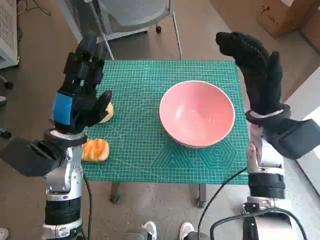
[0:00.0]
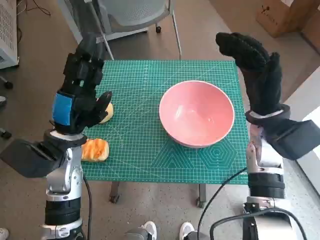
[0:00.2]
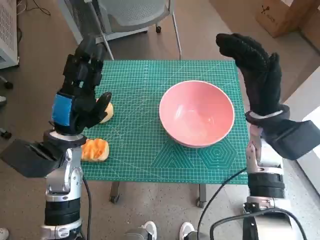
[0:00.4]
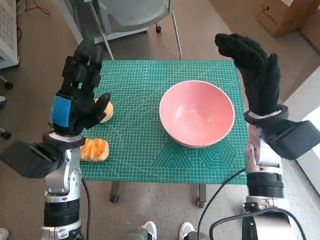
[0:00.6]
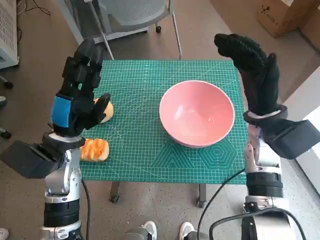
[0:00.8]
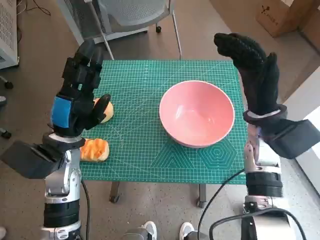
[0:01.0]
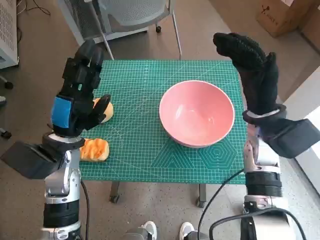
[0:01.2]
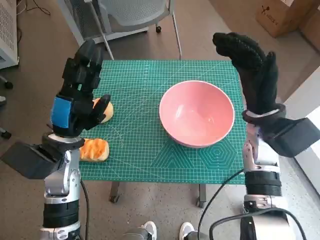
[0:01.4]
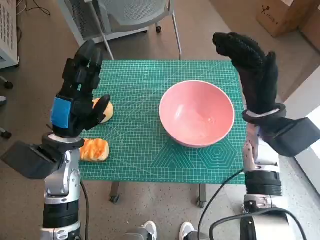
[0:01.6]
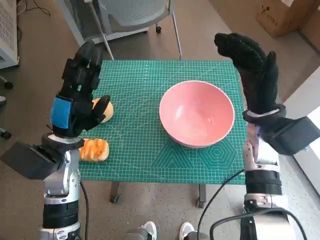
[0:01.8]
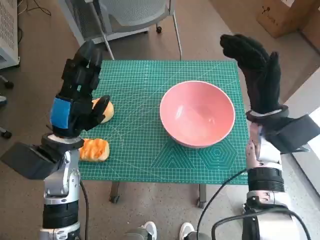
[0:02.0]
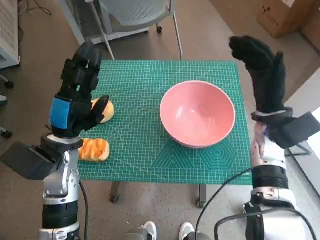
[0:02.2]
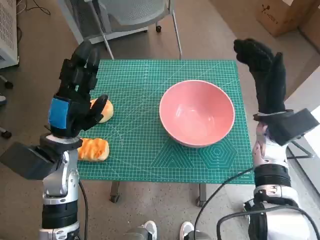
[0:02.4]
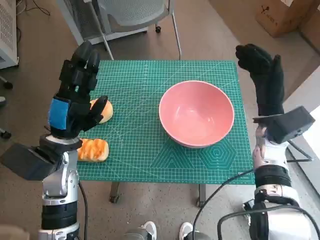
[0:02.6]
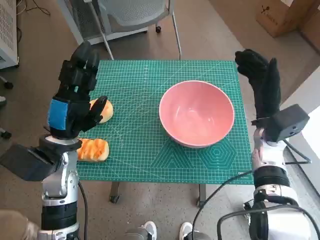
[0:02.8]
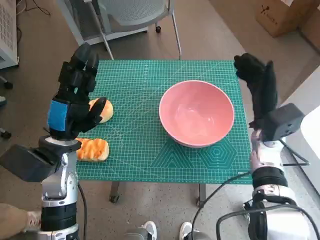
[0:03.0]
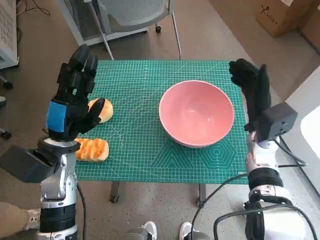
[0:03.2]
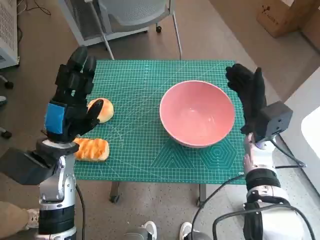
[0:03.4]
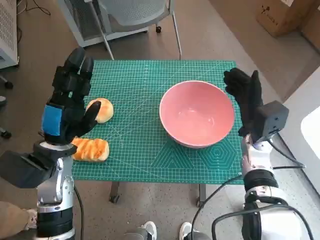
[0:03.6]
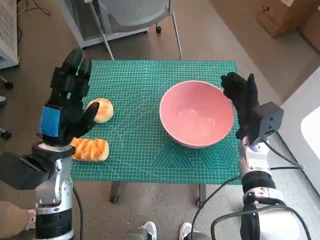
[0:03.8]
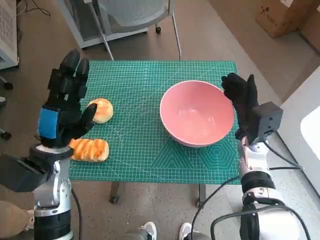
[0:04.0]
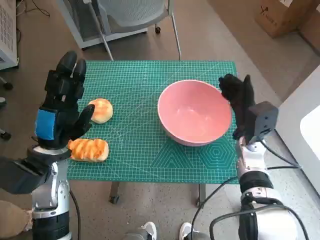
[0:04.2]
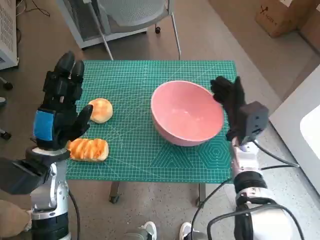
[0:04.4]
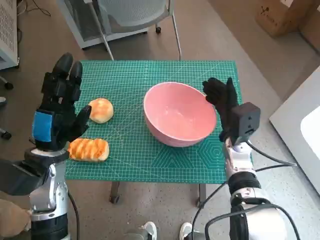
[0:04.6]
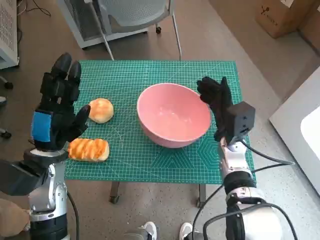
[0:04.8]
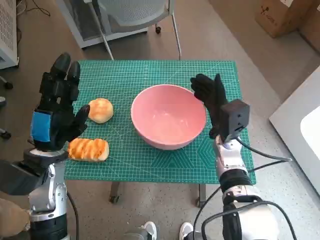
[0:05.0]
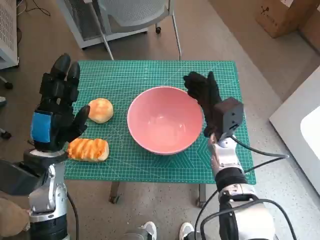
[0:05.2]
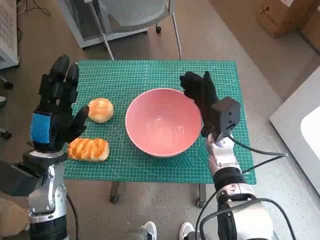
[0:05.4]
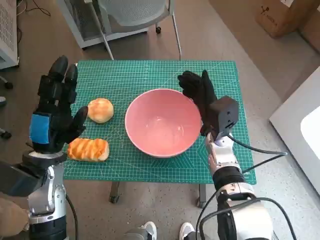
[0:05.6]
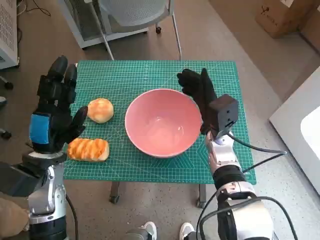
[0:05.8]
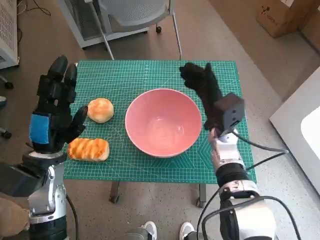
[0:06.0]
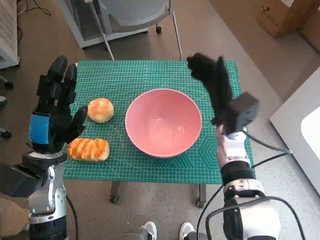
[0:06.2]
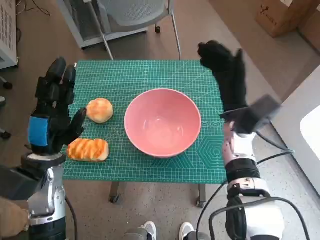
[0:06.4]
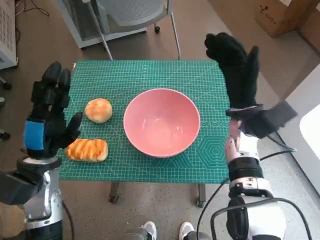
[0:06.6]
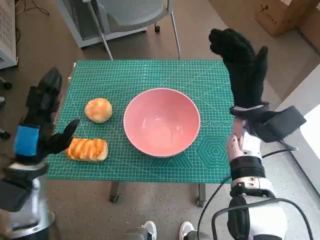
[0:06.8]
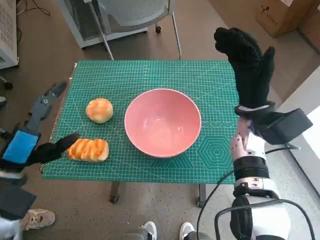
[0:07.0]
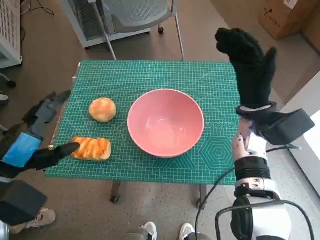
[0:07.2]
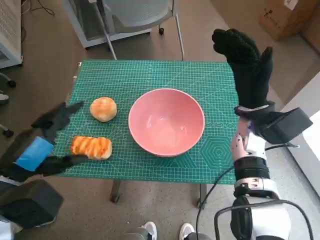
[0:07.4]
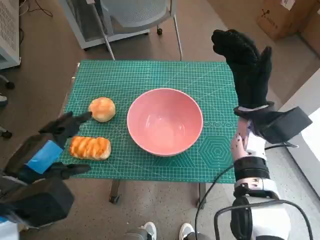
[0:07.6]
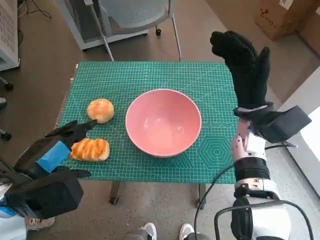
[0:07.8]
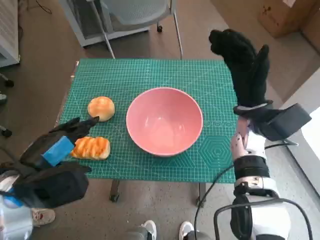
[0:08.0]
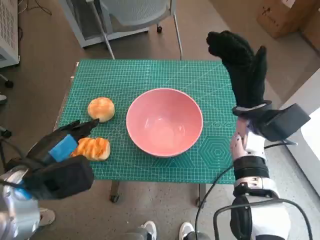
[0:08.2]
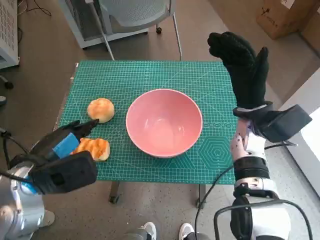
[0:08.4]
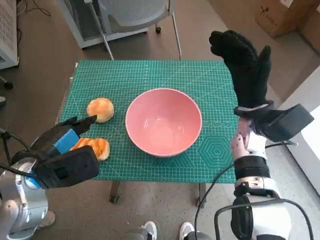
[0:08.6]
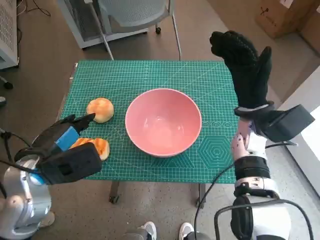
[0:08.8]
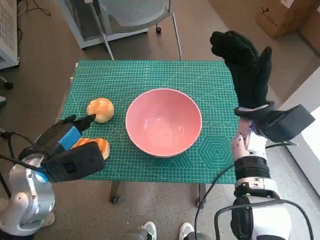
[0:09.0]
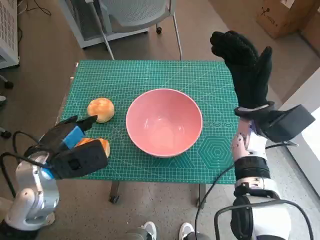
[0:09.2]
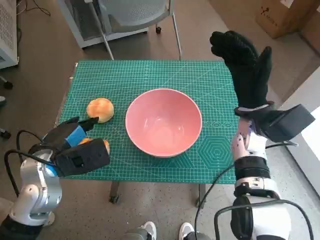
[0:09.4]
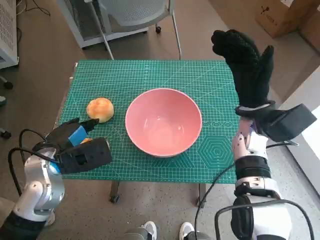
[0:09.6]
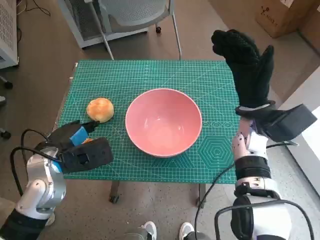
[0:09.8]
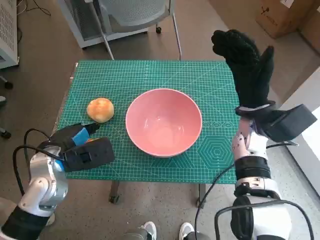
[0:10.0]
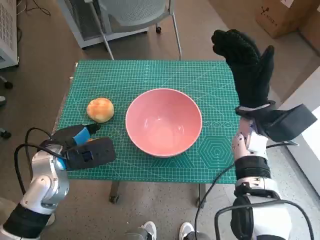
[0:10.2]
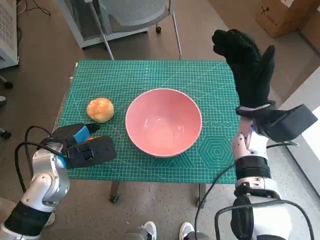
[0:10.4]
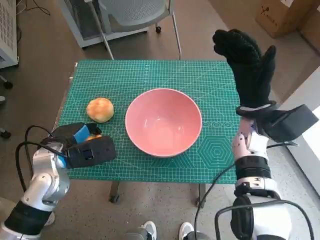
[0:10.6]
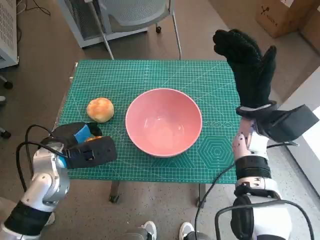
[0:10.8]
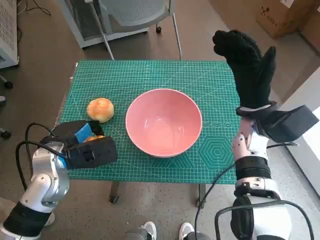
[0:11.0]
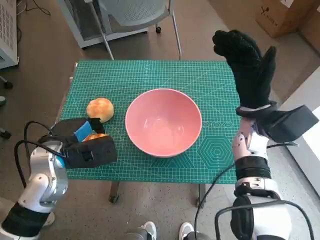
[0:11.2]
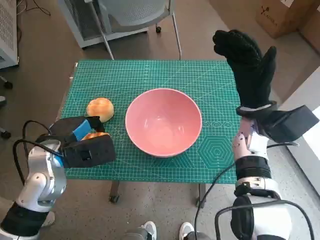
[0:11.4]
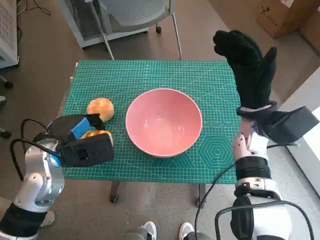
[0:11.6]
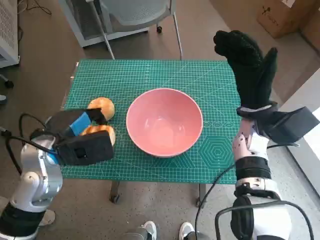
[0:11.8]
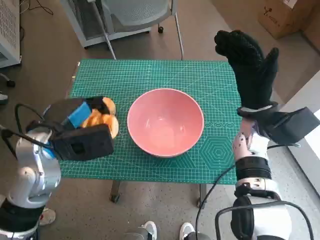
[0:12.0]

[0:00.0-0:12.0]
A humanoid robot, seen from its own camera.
Step, 0:00.0 to 0:05.6: Move the pink bowl to the center of table with right hand.
Step, 0:05.8 to 0:10.6: Grasp the long bread with left hand.
0:01.6 to 0:03.0: The right hand is displaced downward by approximately 5 cm.
0:03.0 to 0:04.4: The right hand moves approximately 5 cm.
0:04.4 to 0:06.0: The right hand shifts roughly 5 cm to the left.
0:06.0 to 0:07.6: The left hand travels backward and upward by about 10 cm; the right hand heads to the right and upward, covering roughly 10 cm.
0:07.6 to 0:09.0: The left hand travels forward by approximately 5 cm.
0:09.0 to 0:10.4: There are only small adjustments of the hands.
0:10.4 to 0:12.0: The left hand is displaced upward by roughly 5 cm.

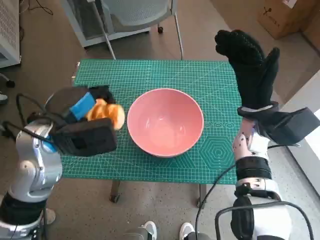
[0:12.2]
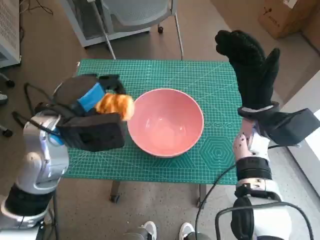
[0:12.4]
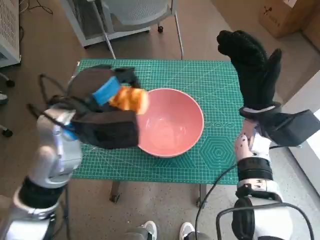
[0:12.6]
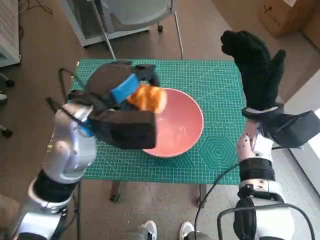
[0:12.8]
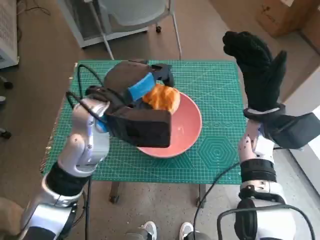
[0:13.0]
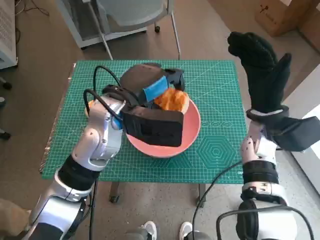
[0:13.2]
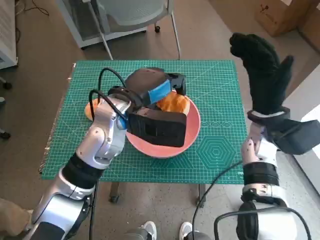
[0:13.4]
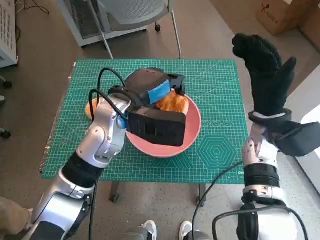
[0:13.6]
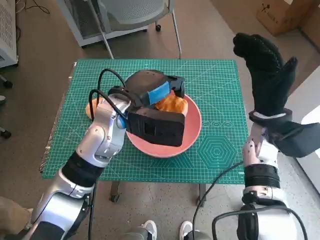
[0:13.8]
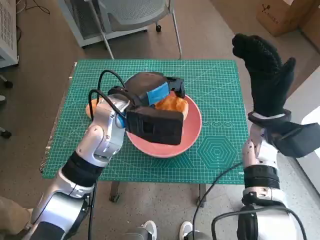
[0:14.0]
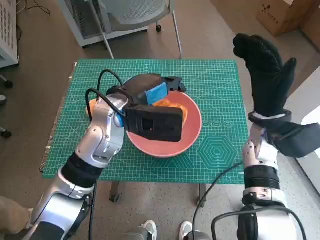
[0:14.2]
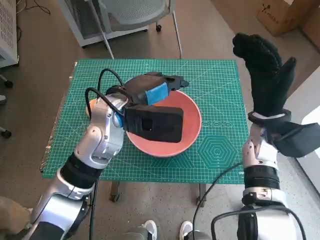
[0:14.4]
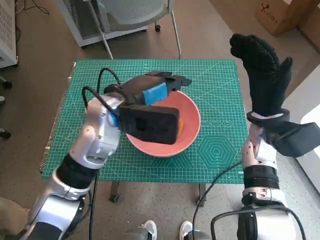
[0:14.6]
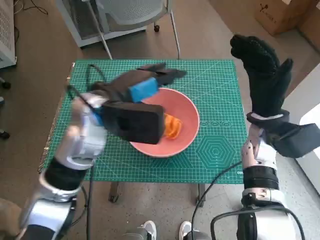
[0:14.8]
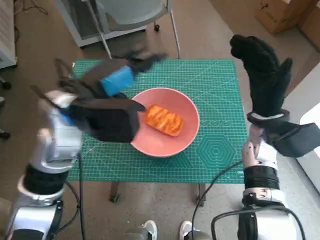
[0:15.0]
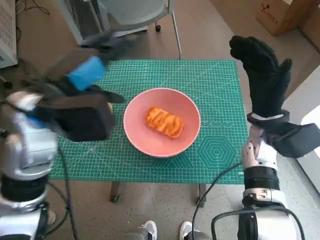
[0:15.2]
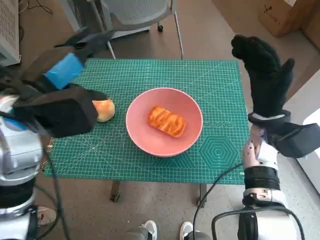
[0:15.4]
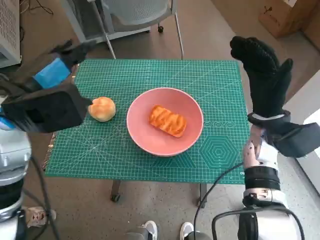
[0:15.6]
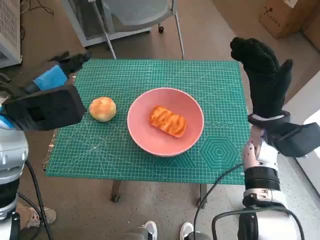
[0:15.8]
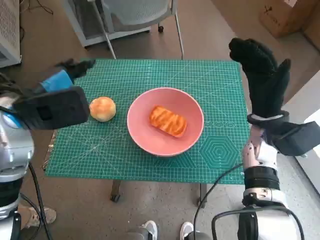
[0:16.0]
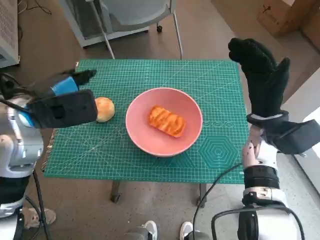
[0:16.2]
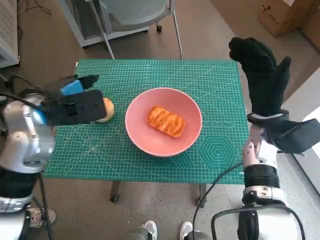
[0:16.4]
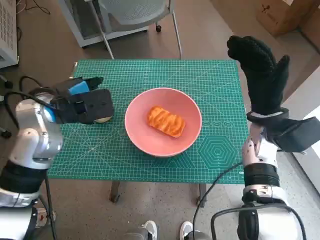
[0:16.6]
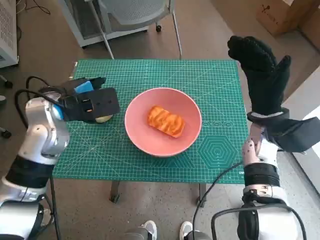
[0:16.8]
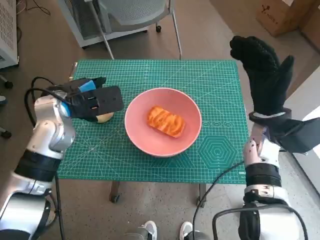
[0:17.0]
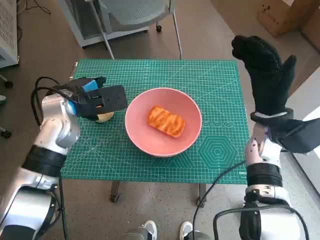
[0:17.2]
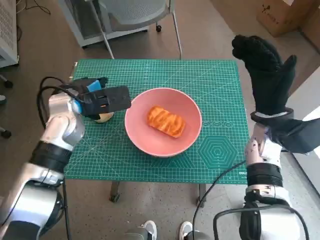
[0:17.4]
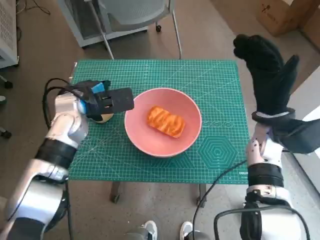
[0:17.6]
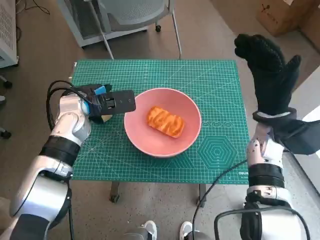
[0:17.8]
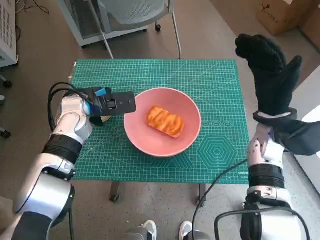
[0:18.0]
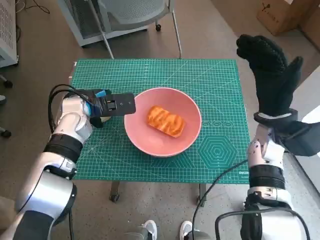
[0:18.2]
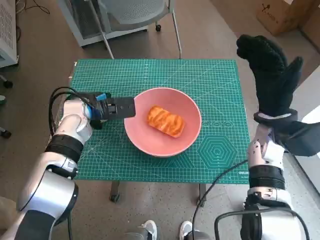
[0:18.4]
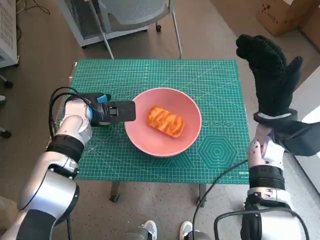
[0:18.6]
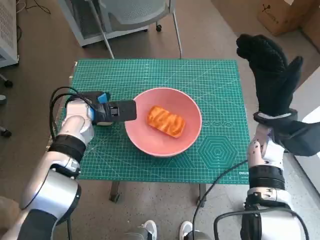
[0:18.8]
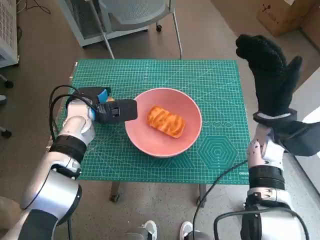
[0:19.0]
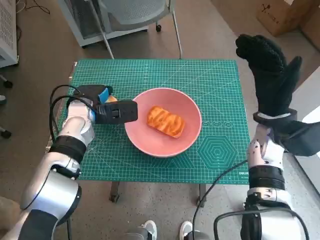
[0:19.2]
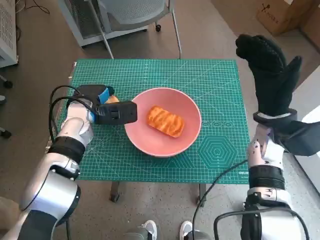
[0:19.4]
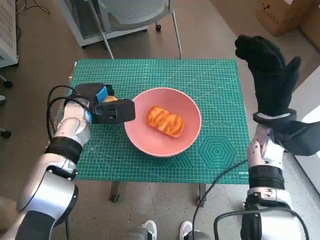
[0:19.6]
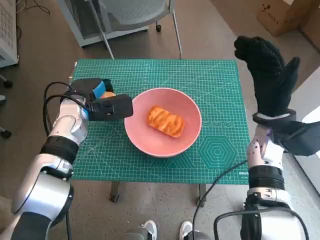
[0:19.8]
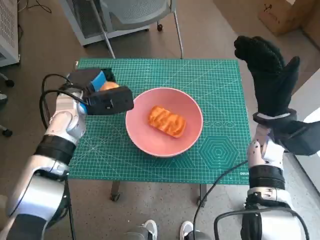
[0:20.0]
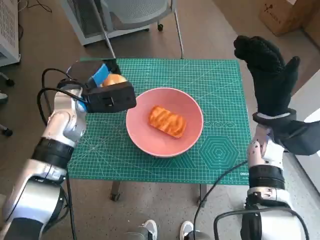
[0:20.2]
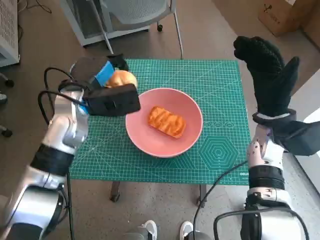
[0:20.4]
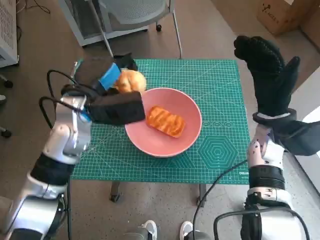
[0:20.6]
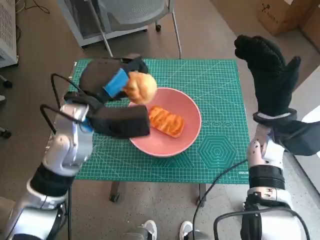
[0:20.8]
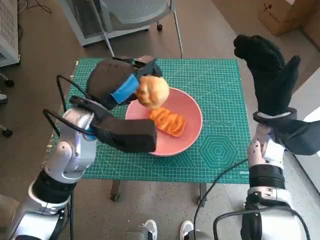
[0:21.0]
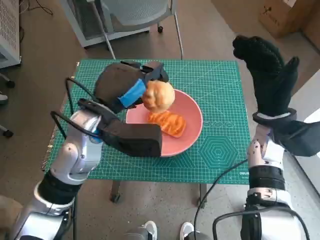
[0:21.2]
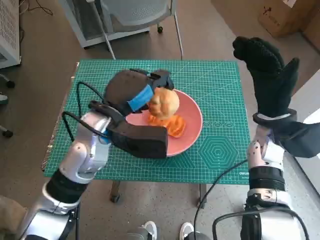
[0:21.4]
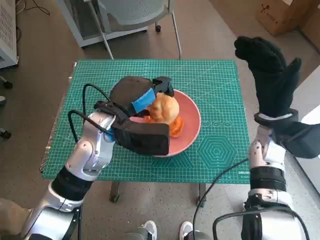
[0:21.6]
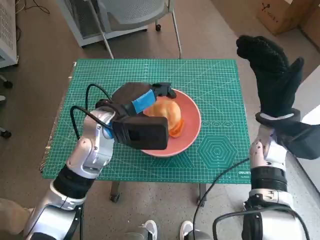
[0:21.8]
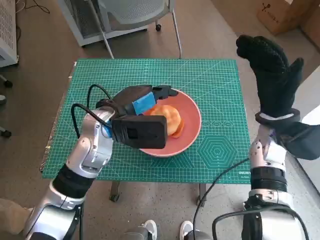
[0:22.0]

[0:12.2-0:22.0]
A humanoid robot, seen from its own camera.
Step, 0:12.2 to 0:14.4: Place the long bread in pink bowl with left hand.
Step, 0:14.6 to 0:18.8: Grasp the round bread with left hand.
Step, 0:19.0 to 0:22.0: Place the round bread in pink bowl with left hand.
0:12.2 to 0:13.6: The left hand heads to the right and forward, covering approximately 15 cm.
0:13.6 to 0:15.0: The left hand moves to the left, about 5 cm.
0:15.0 to 0:16.4: The left hand heads to the left, covering roughly 10 cm.
0:16.4 to 0:17.8: The left hand heads downward and forward, covering some 10 cm.
0:17.8 to 0:19.2: The hands make only small movements.
0:19.2 to 0:20.6: The left hand heads upward, covering roughly 5 cm.
0:20.6 to 0:22.0: The left hand changes place by approximately 5 cm.
